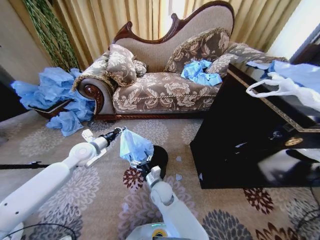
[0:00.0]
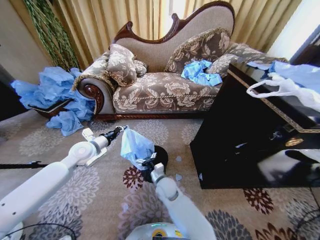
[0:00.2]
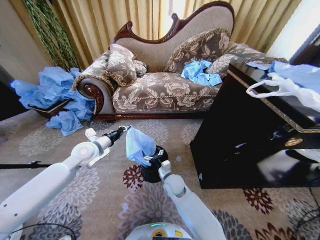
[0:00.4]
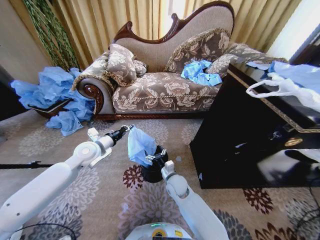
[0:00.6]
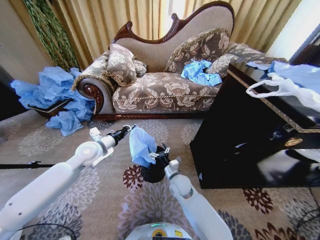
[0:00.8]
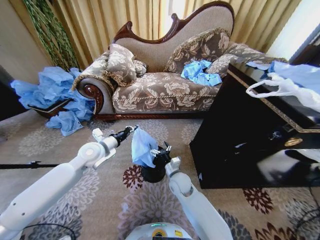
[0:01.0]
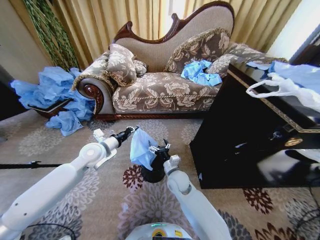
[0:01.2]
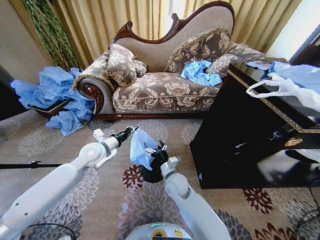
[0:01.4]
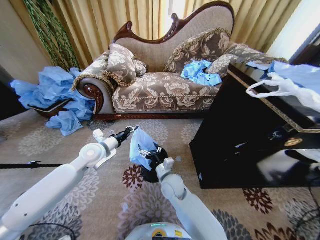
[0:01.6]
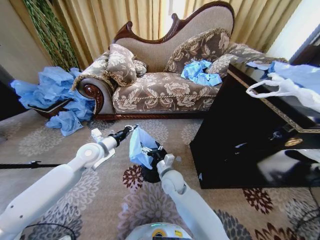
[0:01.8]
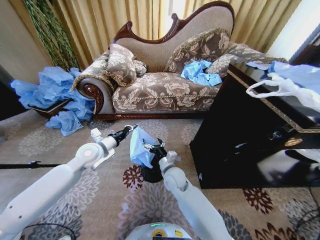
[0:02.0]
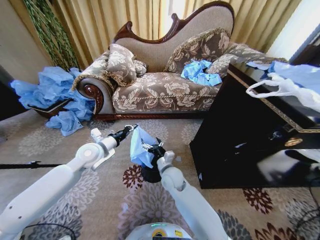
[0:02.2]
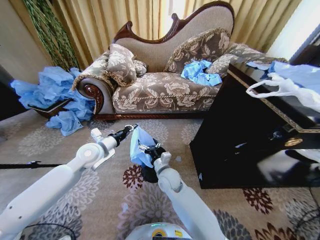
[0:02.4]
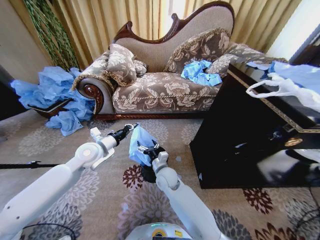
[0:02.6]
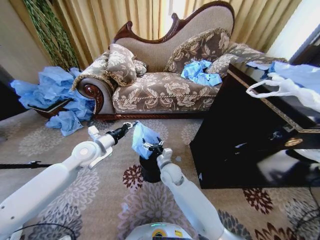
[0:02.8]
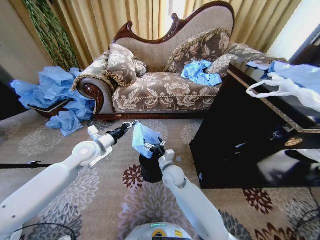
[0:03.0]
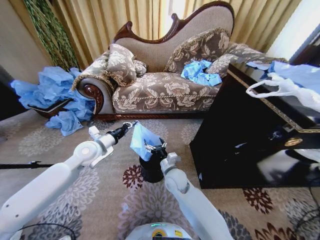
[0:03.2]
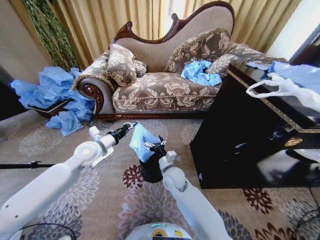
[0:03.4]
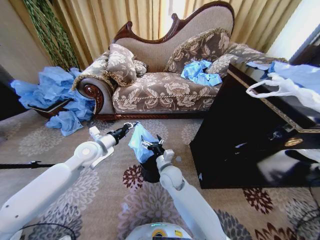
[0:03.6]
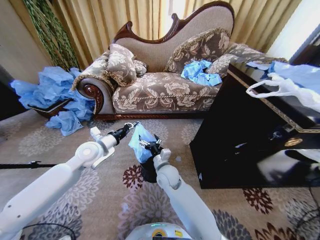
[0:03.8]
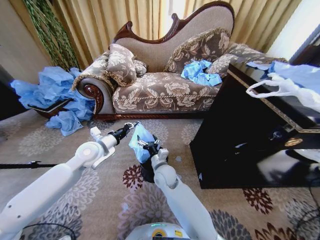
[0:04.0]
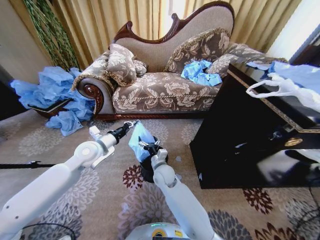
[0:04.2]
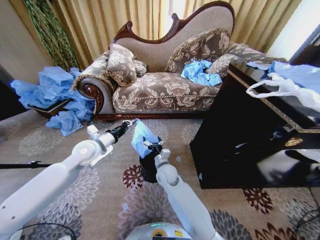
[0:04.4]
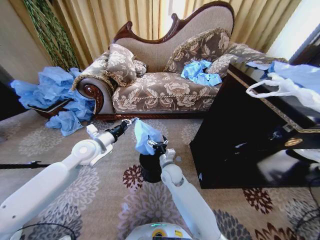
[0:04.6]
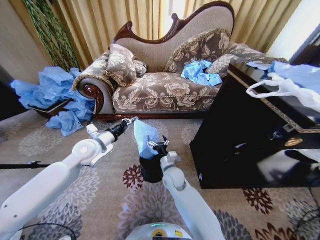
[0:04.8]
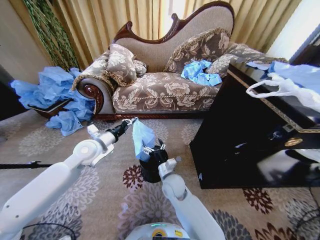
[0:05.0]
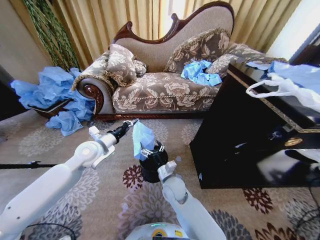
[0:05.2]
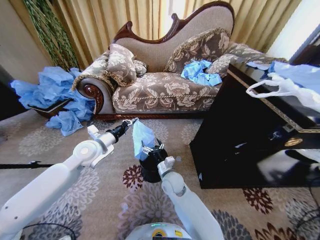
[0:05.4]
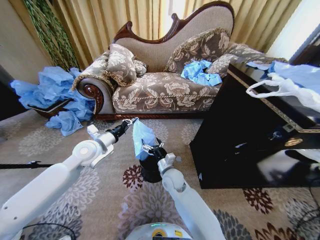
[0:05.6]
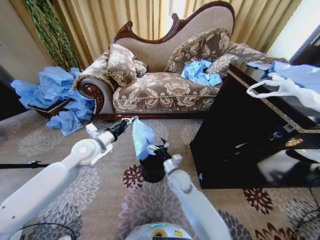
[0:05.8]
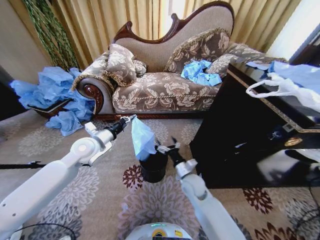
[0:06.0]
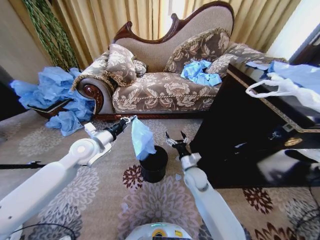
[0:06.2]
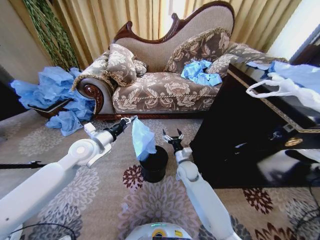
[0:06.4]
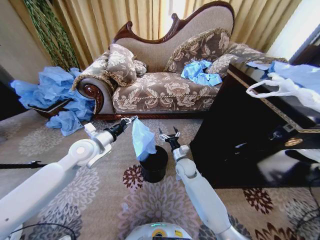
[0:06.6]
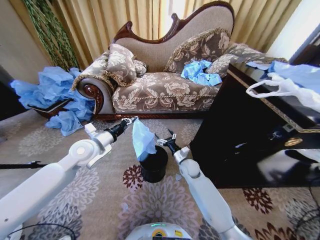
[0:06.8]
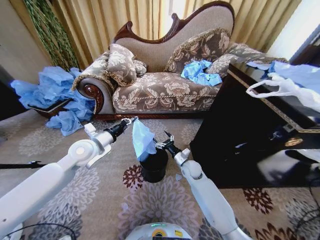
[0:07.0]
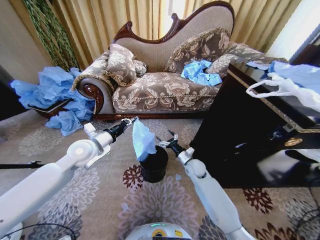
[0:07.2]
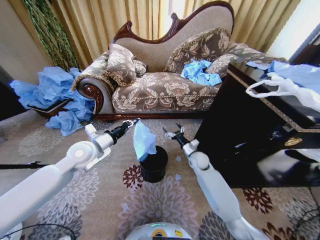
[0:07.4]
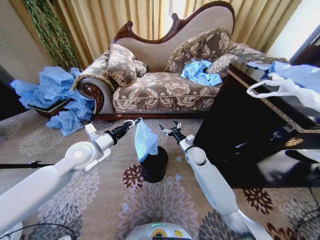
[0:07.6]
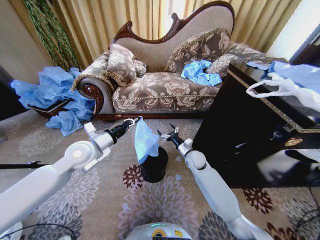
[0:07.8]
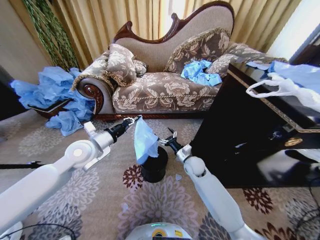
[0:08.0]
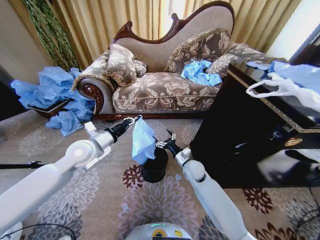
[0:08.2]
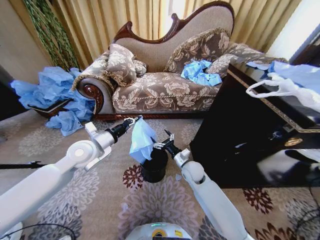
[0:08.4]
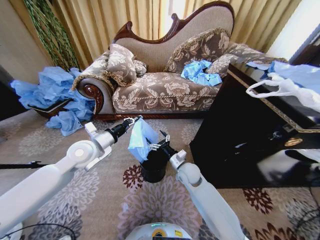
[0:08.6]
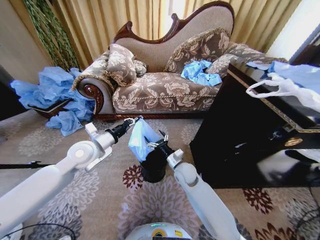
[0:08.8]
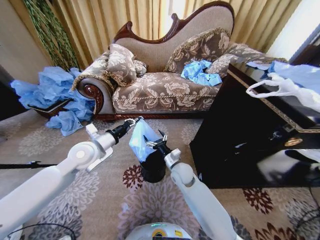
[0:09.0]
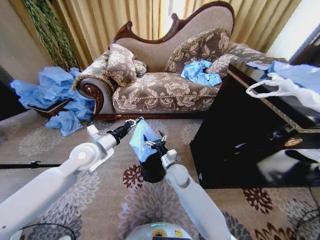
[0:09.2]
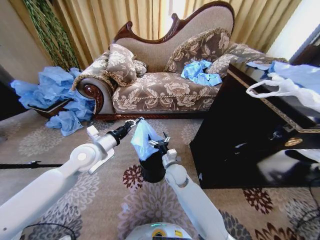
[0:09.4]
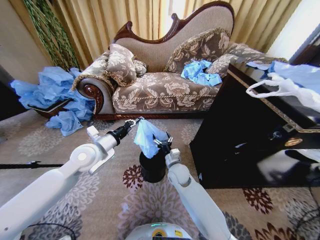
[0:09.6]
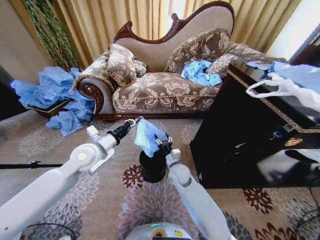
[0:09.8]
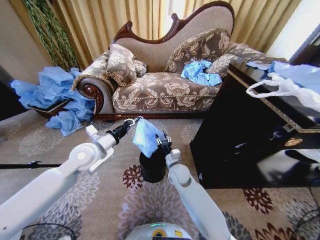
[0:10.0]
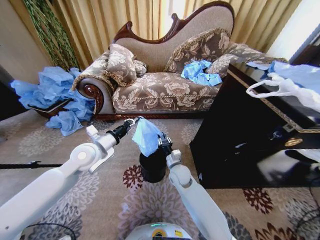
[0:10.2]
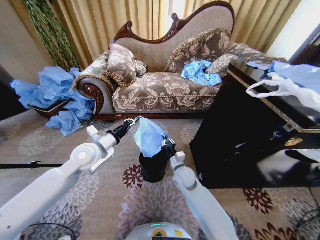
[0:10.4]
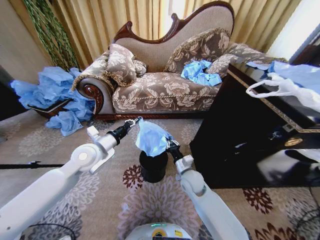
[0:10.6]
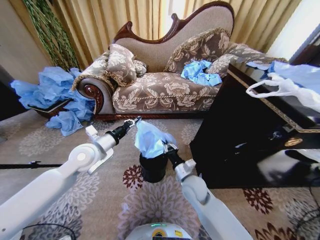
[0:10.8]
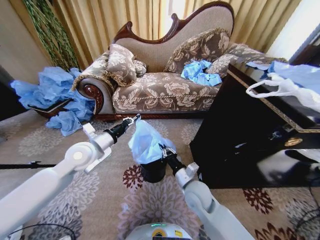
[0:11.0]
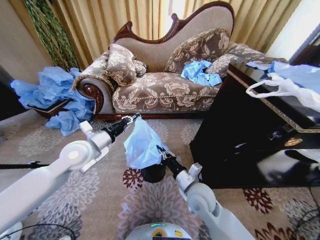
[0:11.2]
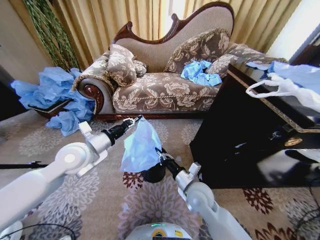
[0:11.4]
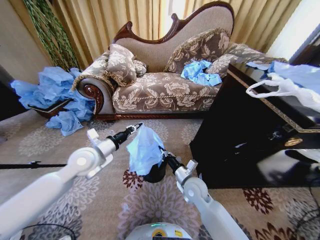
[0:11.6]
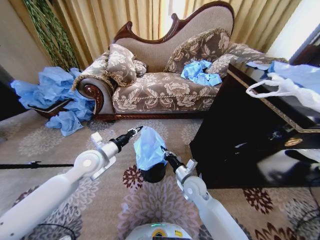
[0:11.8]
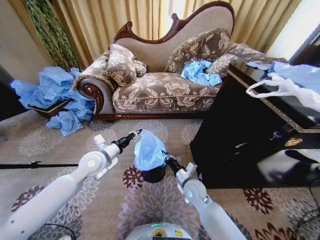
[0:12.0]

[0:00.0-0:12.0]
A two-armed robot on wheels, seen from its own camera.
Task of the whole recording: Place a garbage bag over the trash bin.
0:00.0 to 0:01.6: The left gripper heads to the right, covering some 5 cm. The right gripper moves upward, roughly 5 cm.
0:01.6 to 0:04.4: The grippers stay close to where they were, moving slightly.
0:04.4 to 0:06.0: The right gripper moves to the right, roughly 10 cm.
0:06.0 to 0:07.6: The right gripper heads forward, covering some 15 cm.
0:07.6 to 0:09.0: The right gripper goes some 15 cm backward and to the left.
0:09.0 to 0:10.4: The right gripper closes its fingers.
0:10.4 to 0:12.0: The left gripper heads downward, covering approximately 5 cm.

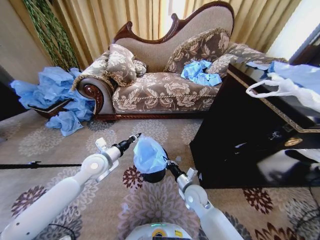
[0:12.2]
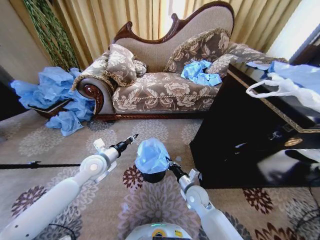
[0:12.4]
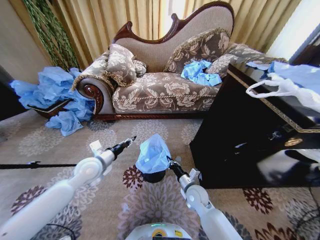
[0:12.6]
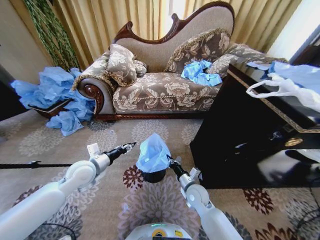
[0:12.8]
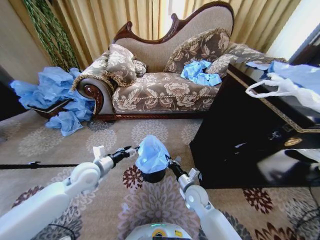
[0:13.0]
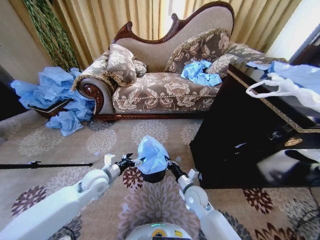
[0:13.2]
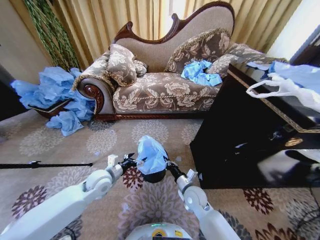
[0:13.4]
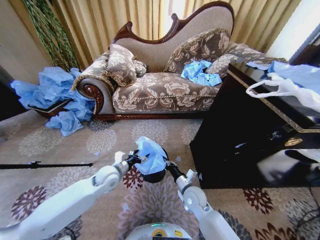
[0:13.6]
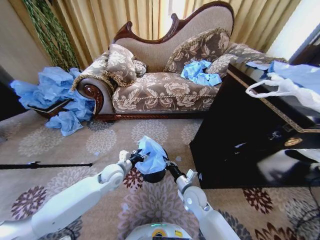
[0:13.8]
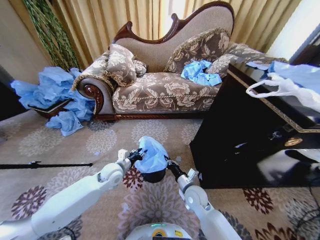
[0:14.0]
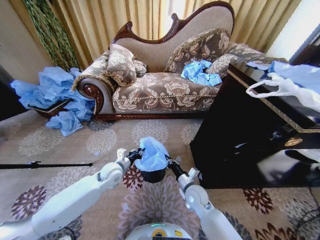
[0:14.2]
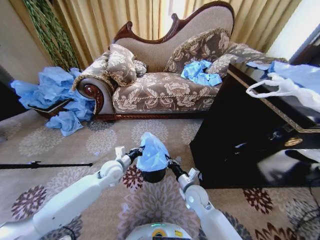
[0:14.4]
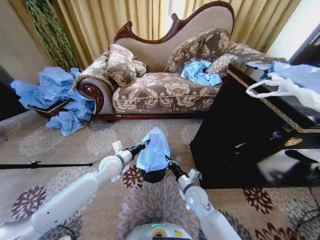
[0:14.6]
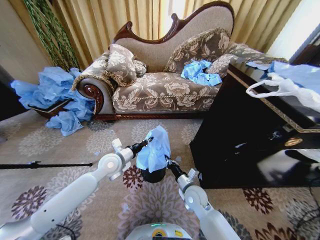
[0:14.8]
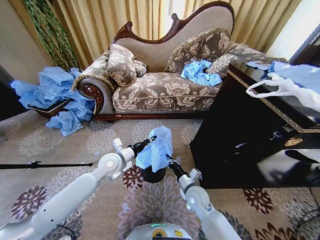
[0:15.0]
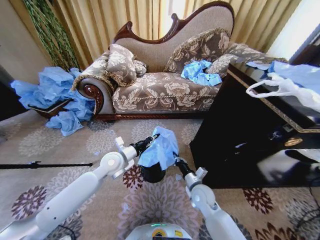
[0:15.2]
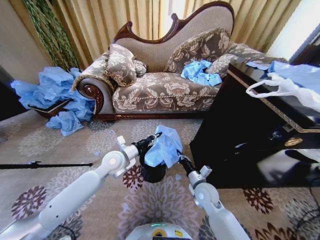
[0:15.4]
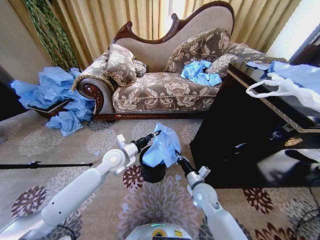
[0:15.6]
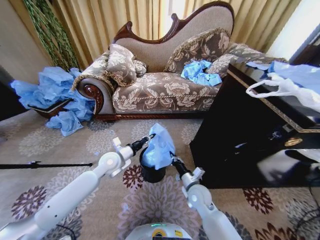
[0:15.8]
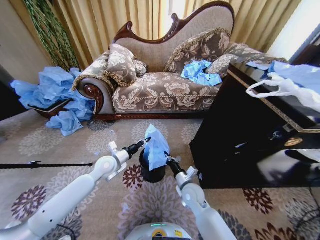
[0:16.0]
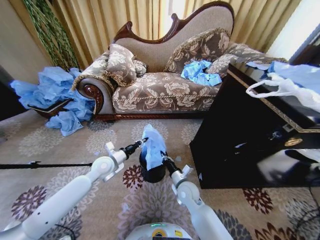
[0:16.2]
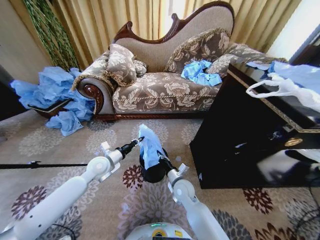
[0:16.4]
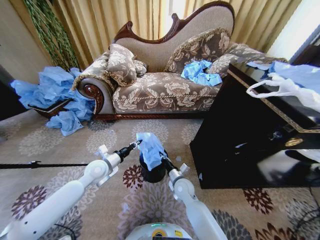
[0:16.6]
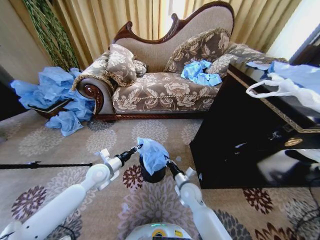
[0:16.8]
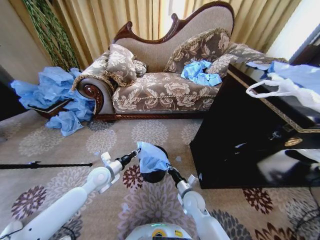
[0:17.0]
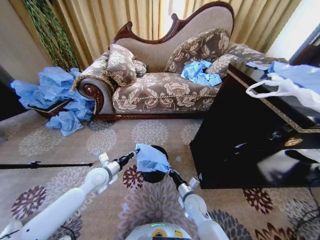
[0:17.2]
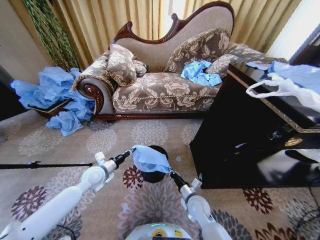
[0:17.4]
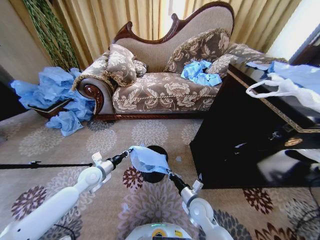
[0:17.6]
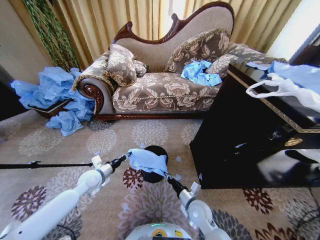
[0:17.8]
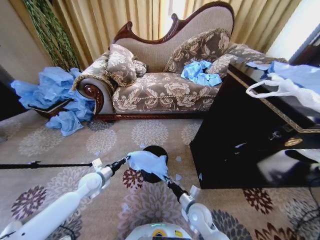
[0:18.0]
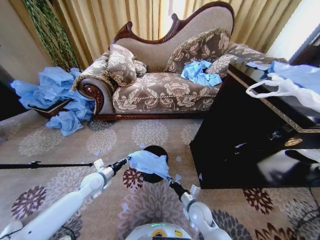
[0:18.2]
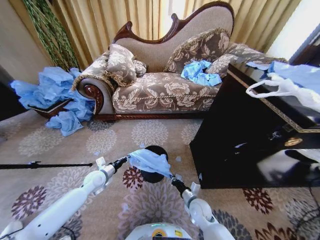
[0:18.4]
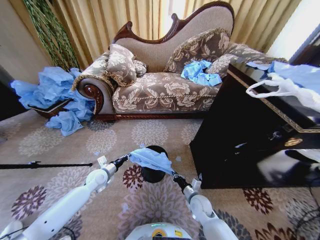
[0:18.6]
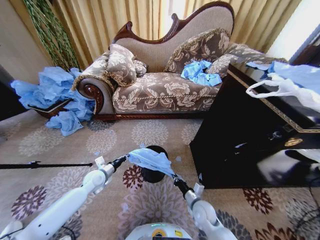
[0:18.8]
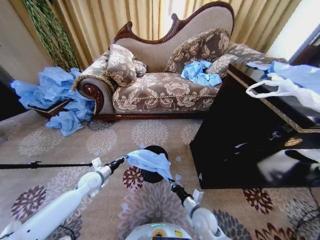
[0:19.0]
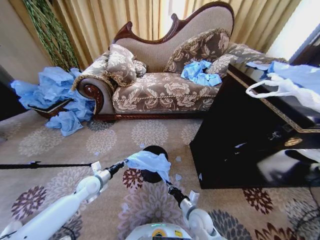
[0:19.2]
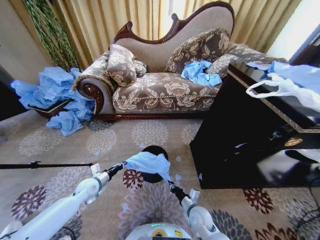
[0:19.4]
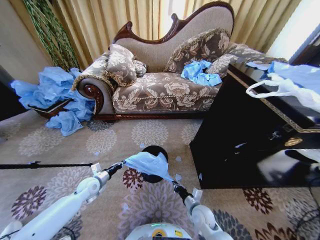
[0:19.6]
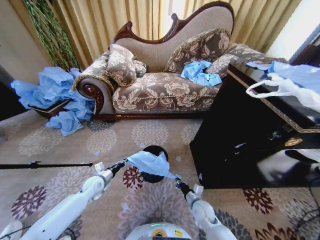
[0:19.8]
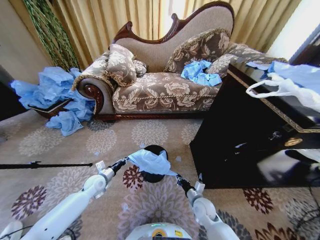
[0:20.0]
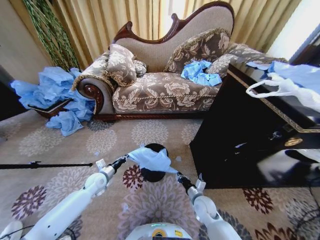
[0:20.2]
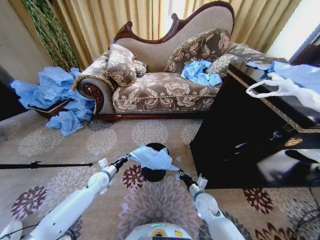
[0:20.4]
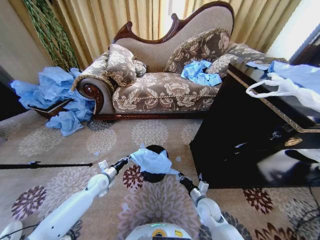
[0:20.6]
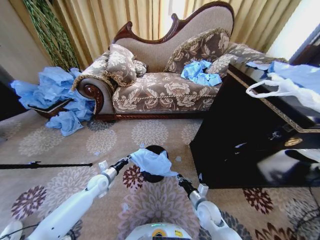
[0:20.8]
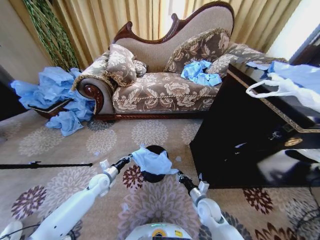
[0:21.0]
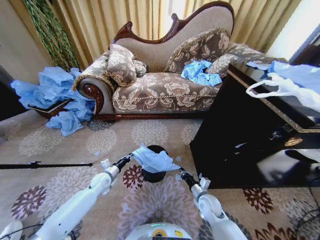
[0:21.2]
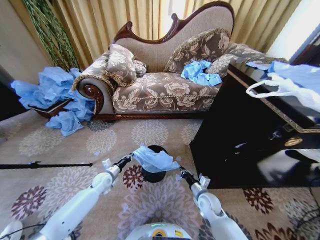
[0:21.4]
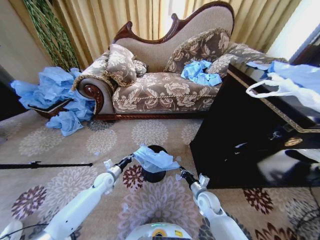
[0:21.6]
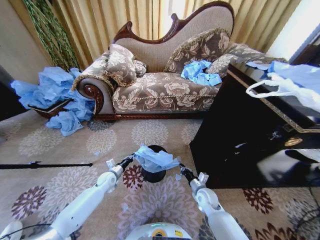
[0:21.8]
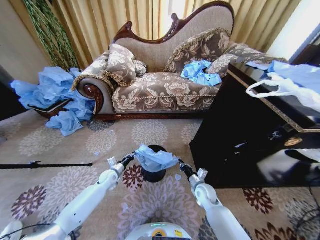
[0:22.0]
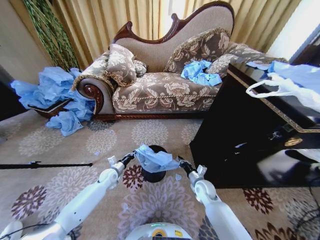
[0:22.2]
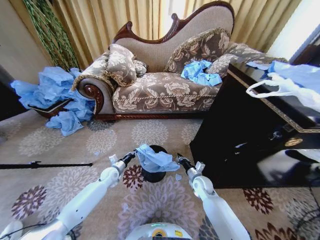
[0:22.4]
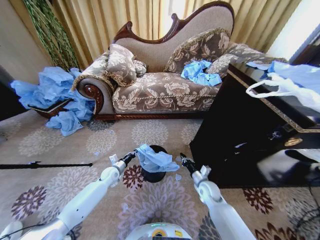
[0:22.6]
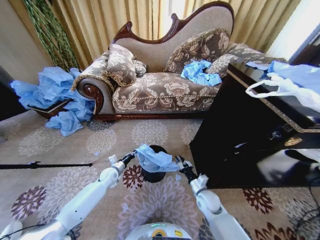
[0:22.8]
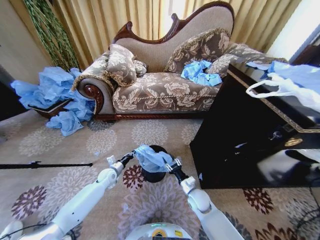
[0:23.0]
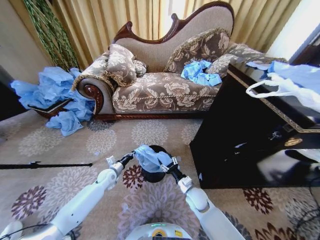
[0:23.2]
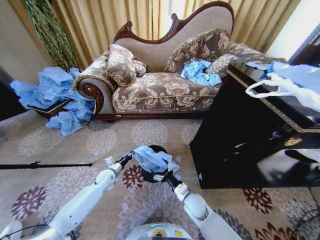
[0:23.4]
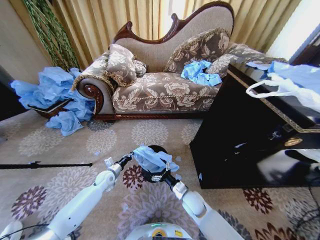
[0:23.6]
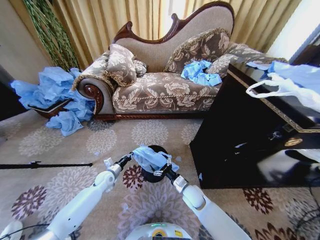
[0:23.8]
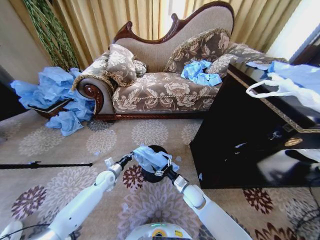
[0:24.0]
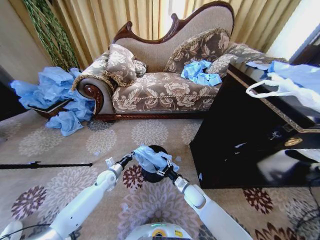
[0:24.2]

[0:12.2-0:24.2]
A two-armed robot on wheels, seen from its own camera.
Task of the whole recording: Place a garbage bag over the trash bin.
0:12.2 to 0:13.8: The left gripper travels downward by about 10 cm, and opens.
0:13.8 to 0:15.2: The left gripper travels upward by approximately 10 cm, and closes its fingers.
0:15.2 to 0:16.6: The grippers both shift to the left by roughly 10 cm.
0:16.6 to 0:18.2: The right gripper goes approximately 10 cm backward and to the right. Meanwhile the left gripper is displaced downward by approximately 10 cm.
0:18.2 to 0:19.8: The left gripper shifts by about 5 cm.
0:19.8 to 0:21.2: The grippers move only a little.
0:21.2 to 0:22.6: The left gripper moves approximately 5 cm. Meanwhile the right gripper is displaced forward by about 5 cm.
0:22.6 to 0:24.2: The right gripper shifts some 10 cm to the left, and opens.
